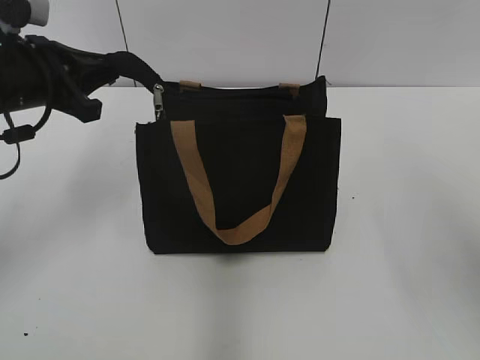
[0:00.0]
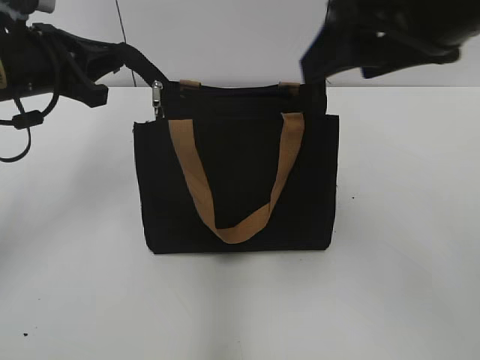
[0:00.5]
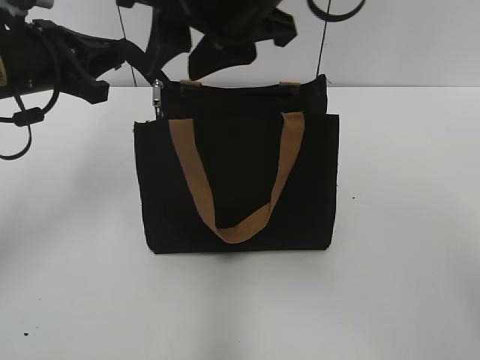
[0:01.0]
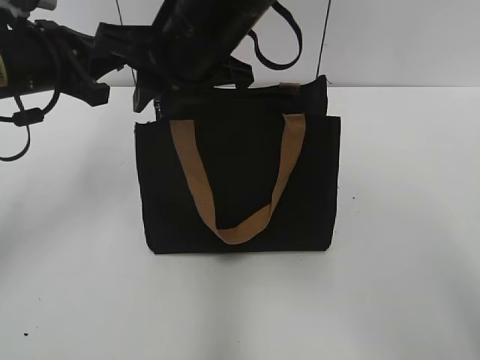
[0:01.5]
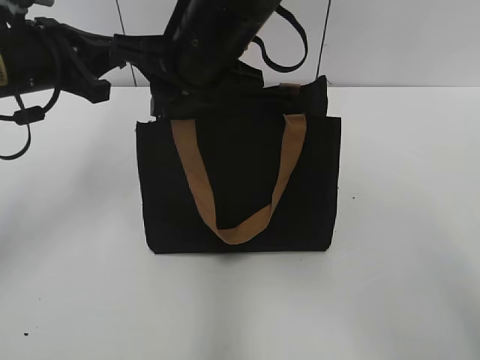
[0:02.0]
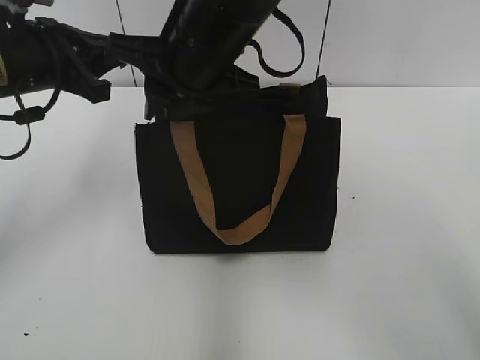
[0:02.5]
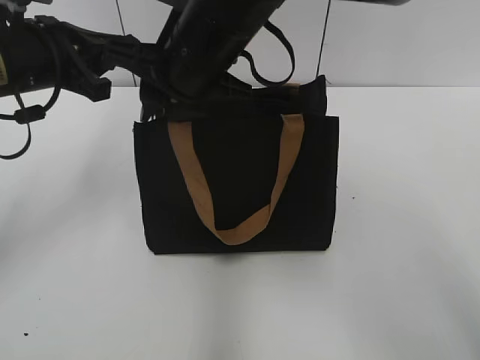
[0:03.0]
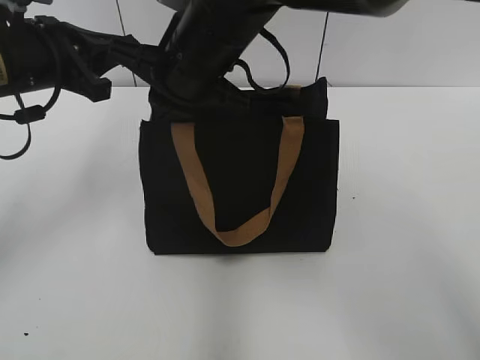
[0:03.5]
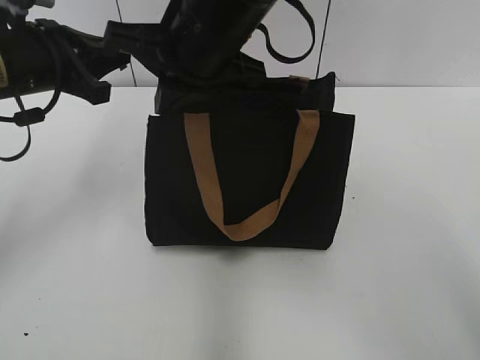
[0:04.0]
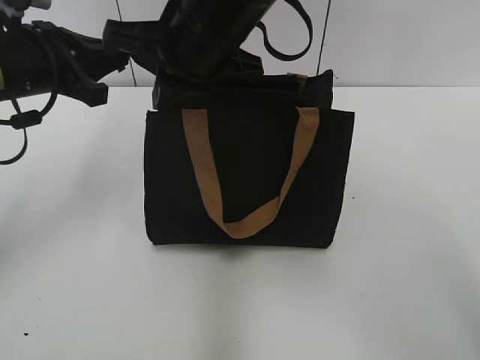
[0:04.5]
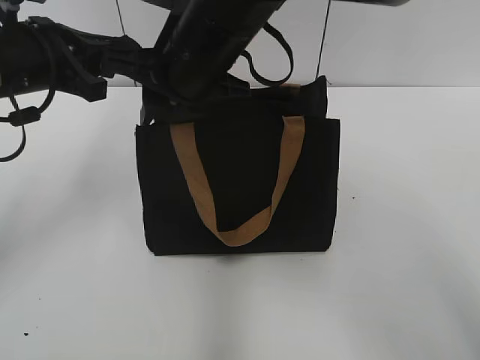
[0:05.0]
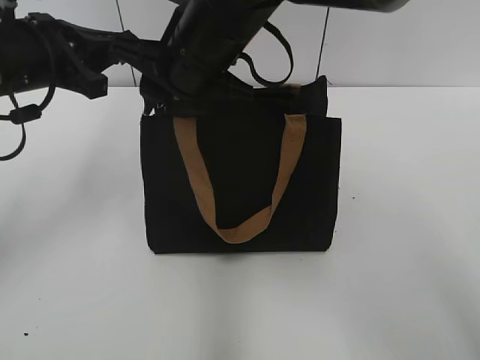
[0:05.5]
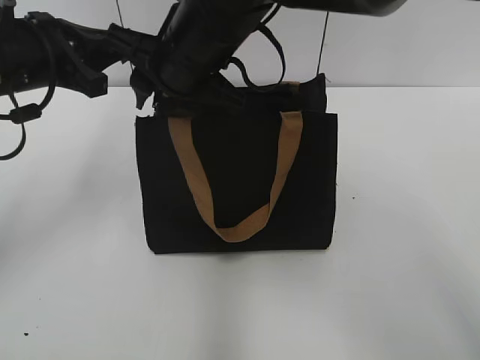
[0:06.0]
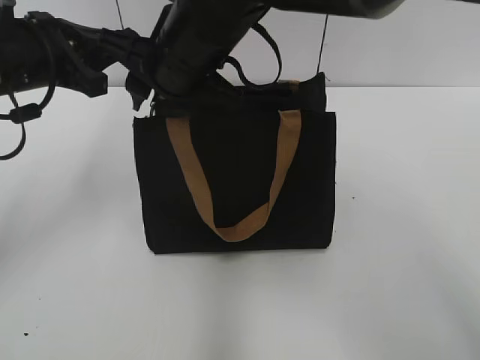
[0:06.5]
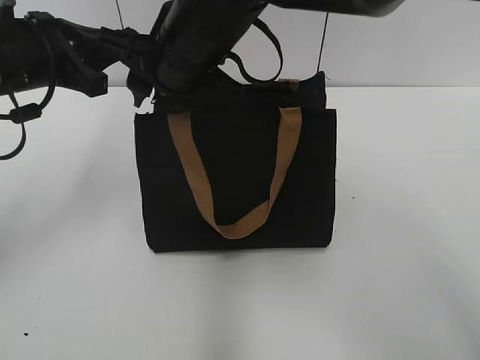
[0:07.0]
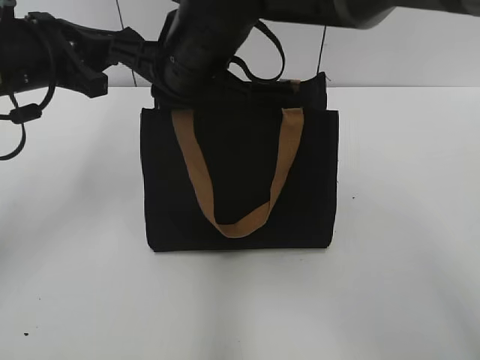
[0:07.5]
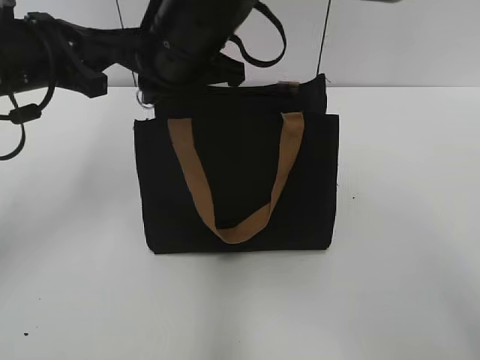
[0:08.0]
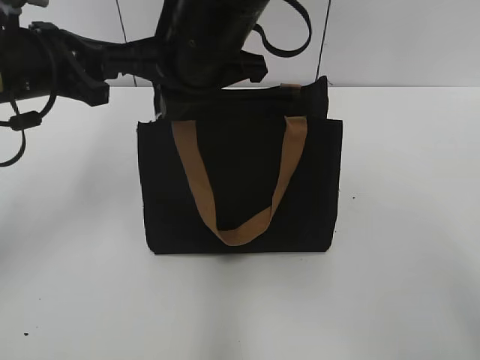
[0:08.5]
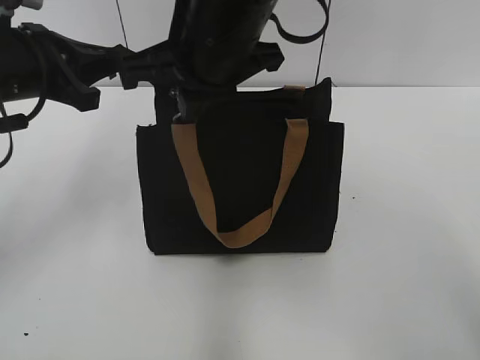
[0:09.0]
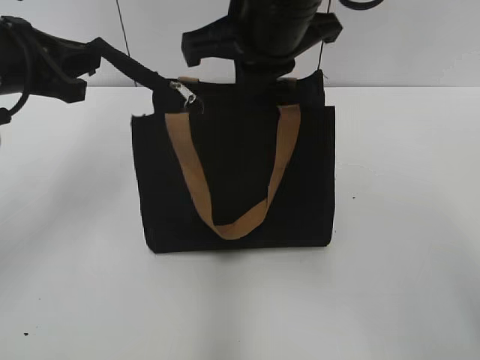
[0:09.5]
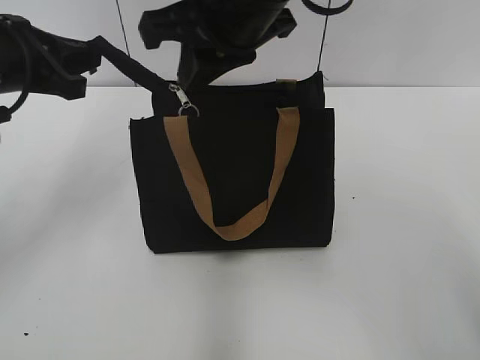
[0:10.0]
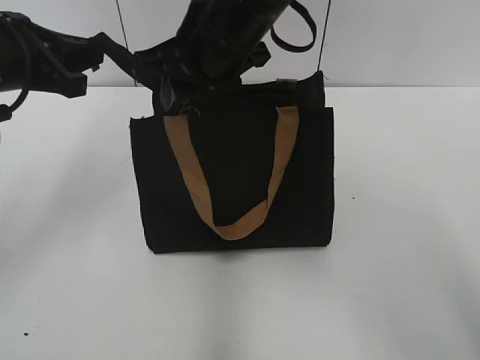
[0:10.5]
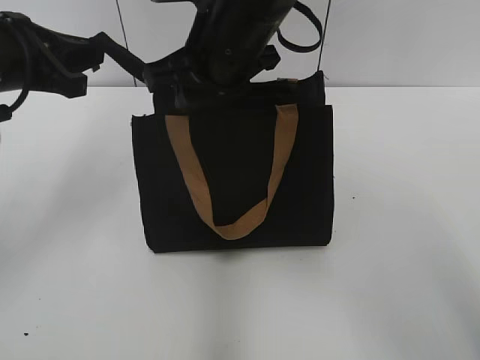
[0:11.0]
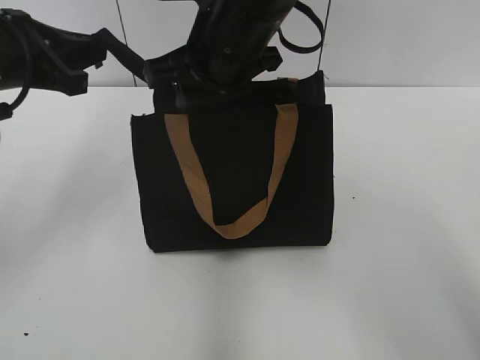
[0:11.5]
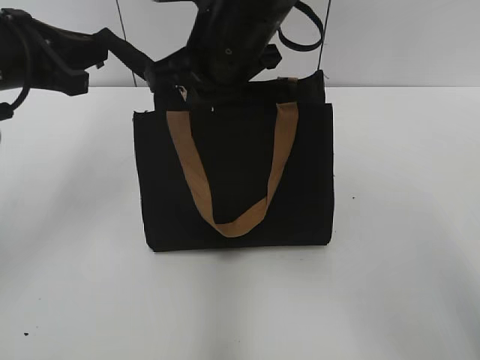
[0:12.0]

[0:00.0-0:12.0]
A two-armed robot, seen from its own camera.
0:00.0 to 0:02.0: The right gripper travels to the left and forward by about 30 cm, and closes up.
0:02.0 to 0:04.0: The right gripper closes.
0:04.0 to 0:06.0: The right gripper opens.
0:06.0 to 0:08.0: The right gripper closes.
0:08.0 to 0:10.0: The right gripper heads to the right, covering some 5 cm.
0:10.0 to 0:12.0: The right gripper travels downward by some 5 cm.

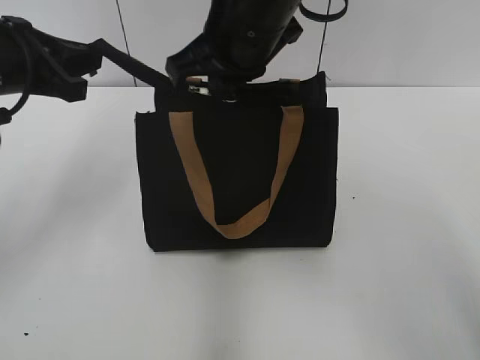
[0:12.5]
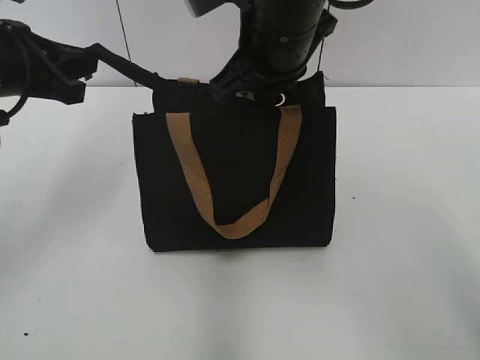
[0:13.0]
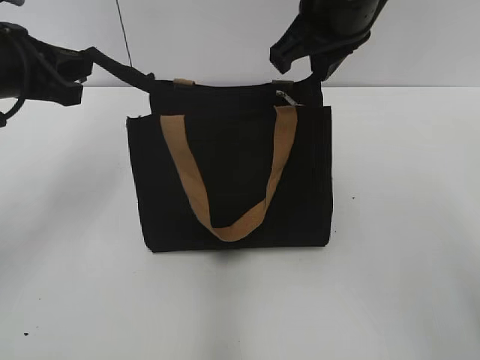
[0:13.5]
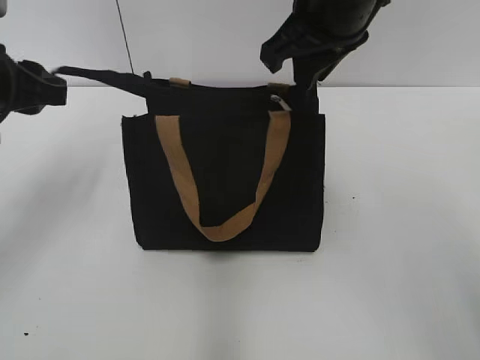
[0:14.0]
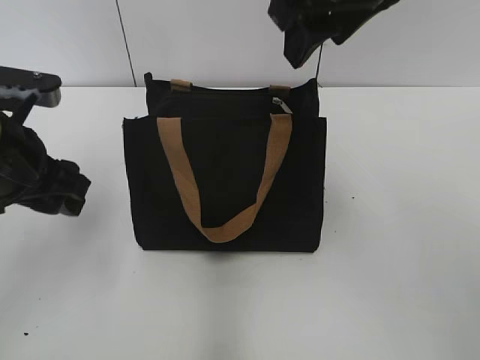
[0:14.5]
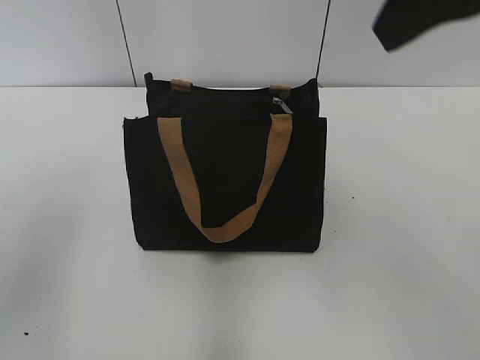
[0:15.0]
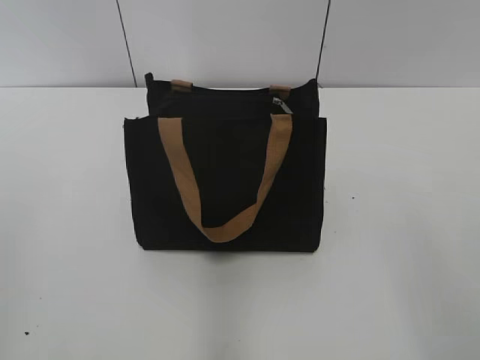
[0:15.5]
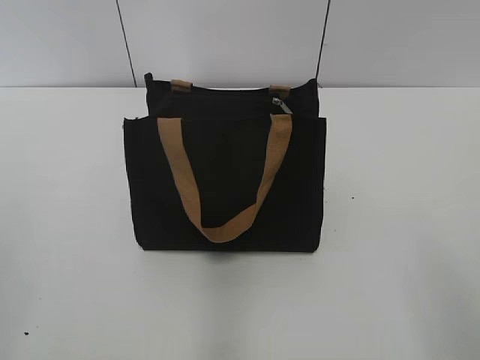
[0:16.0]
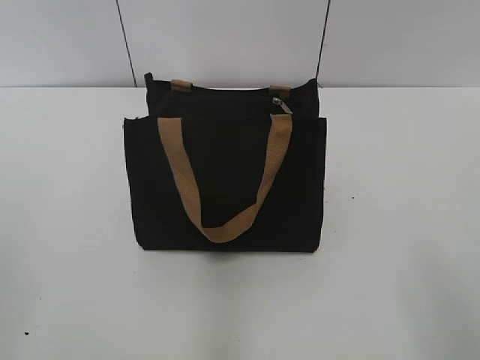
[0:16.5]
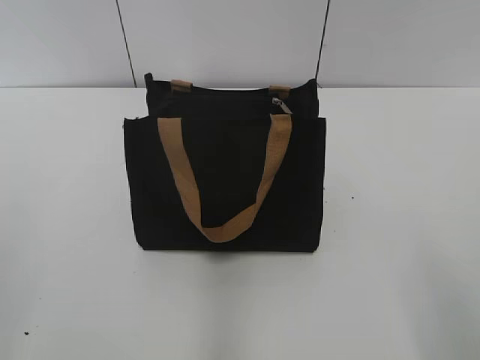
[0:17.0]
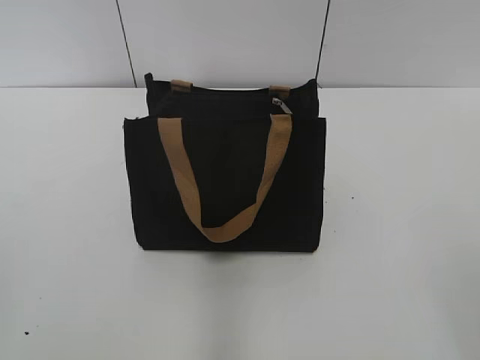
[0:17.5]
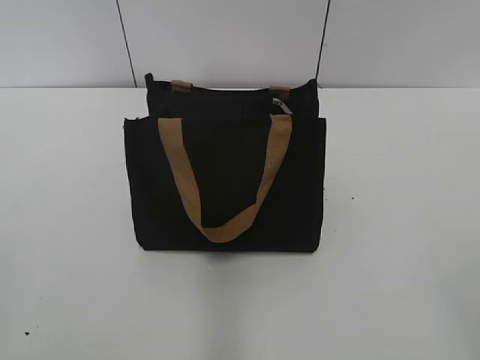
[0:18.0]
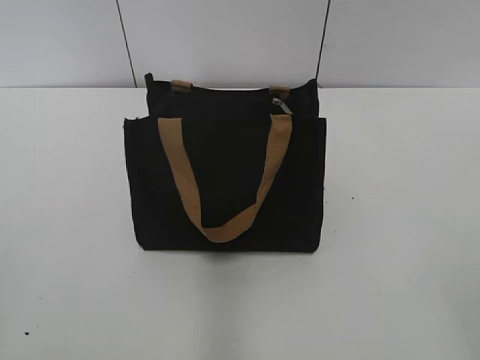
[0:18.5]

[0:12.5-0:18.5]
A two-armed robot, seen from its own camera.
Step, 0:13.5 to 0:14.0: Grab the zipper with your left hand.
0:12.5 to 0:14.5: The left gripper changes place by roughly 5 cm, and opens. The right gripper heads to the right and upward, covering approximately 10 cm, and opens its fingers.
0:14.5 to 0:16.5: The right gripper goes roughly 30 cm backward and to the right. Meanwhile the left gripper is displaced backward and to the left by roughly 25 cm.

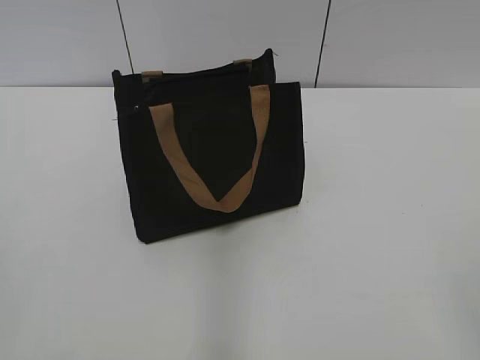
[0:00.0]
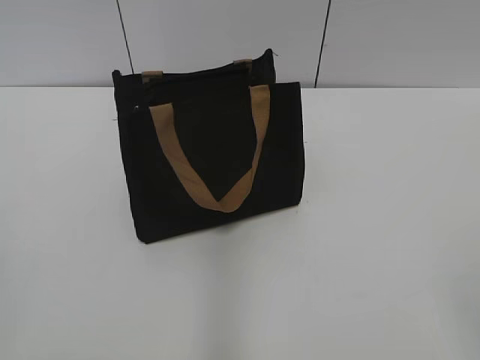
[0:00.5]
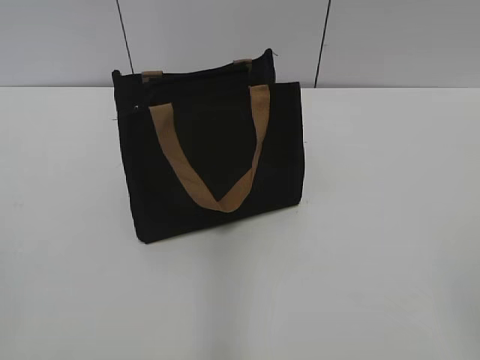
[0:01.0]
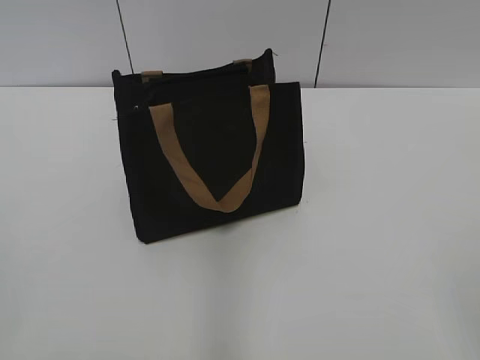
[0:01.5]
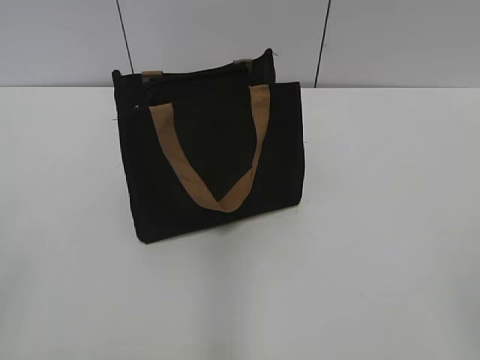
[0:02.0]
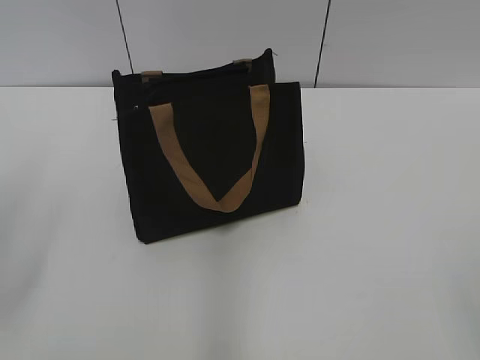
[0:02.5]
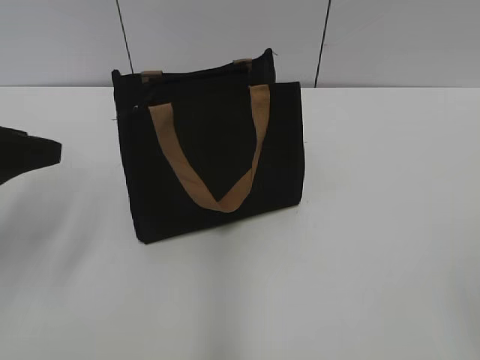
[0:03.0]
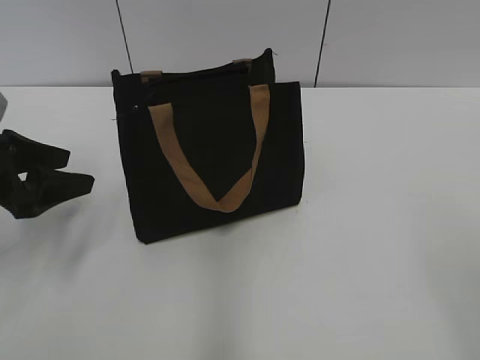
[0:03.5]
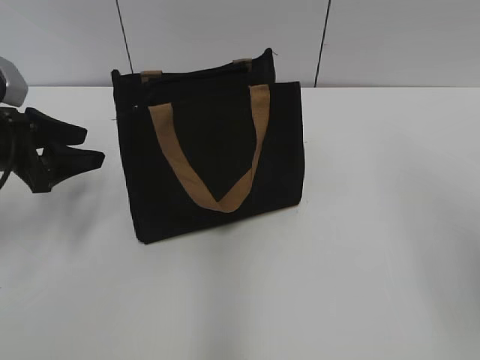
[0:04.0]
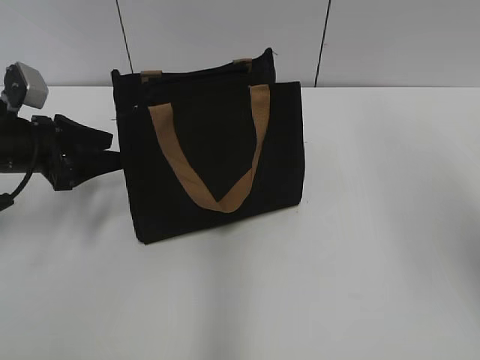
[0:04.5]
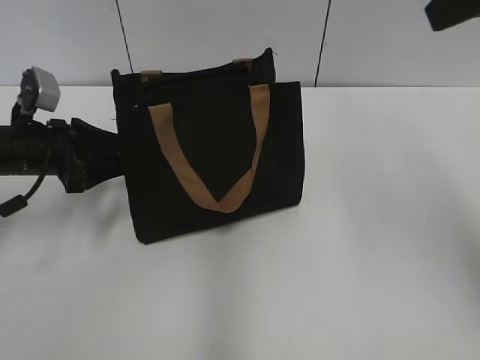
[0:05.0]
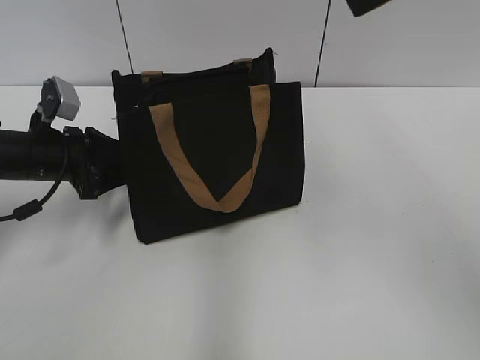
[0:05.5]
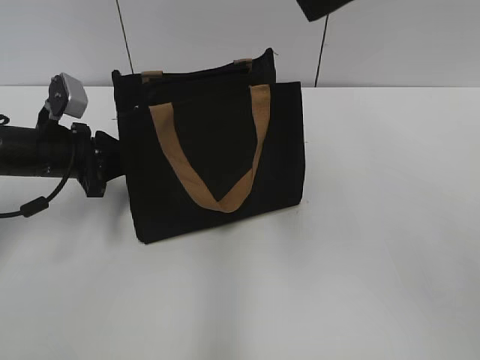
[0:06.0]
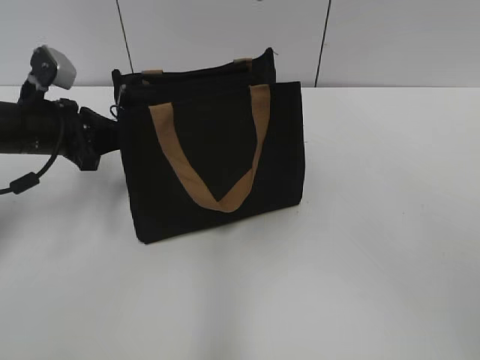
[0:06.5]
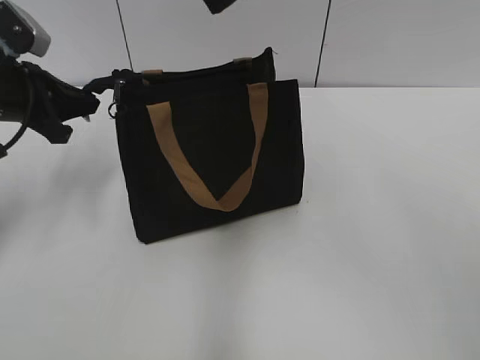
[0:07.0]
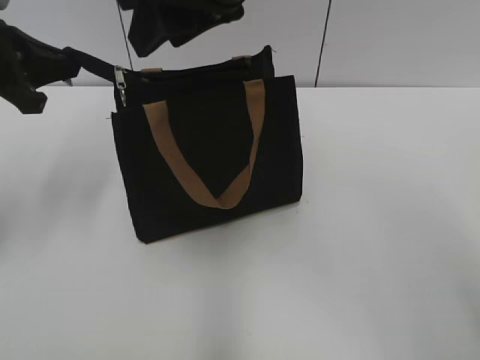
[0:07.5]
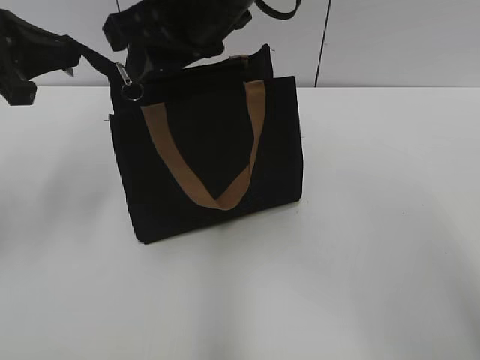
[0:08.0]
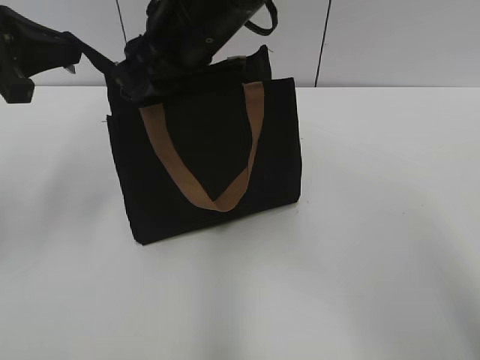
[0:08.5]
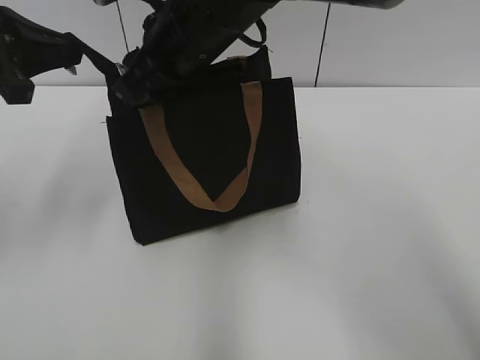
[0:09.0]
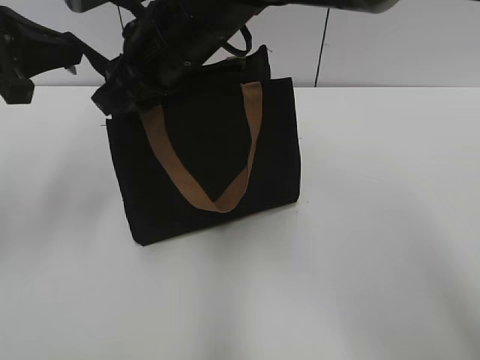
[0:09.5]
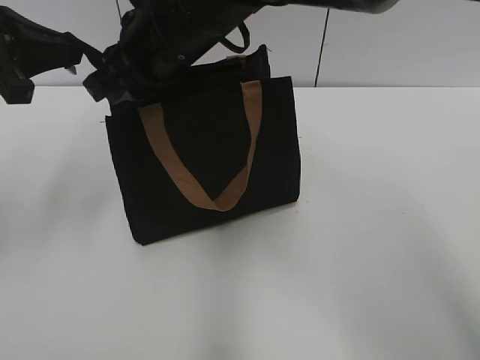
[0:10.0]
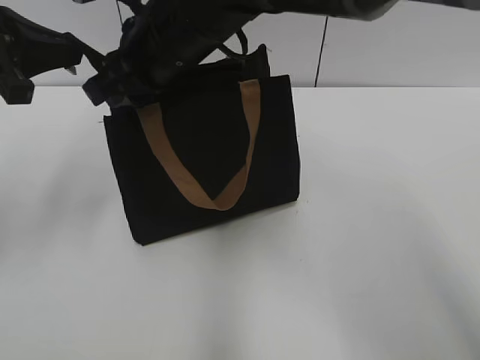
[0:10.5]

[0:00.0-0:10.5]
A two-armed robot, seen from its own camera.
0:02.0 to 0:04.0: The left gripper travels forward and downward by about 30 cm.
0:04.0 to 0:06.5: The left gripper ends up roughly 5 cm from where it was, and closes its fingers.
0:06.5 to 0:08.5: The left gripper moves upward and backward, approximately 15 cm. Meanwhile the right gripper is displaced downward, to the left and forward by about 20 cm.
0:08.5 to 0:10.5: The grippers make only small movements.
